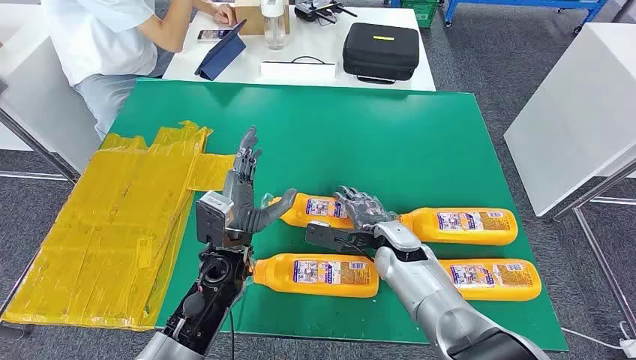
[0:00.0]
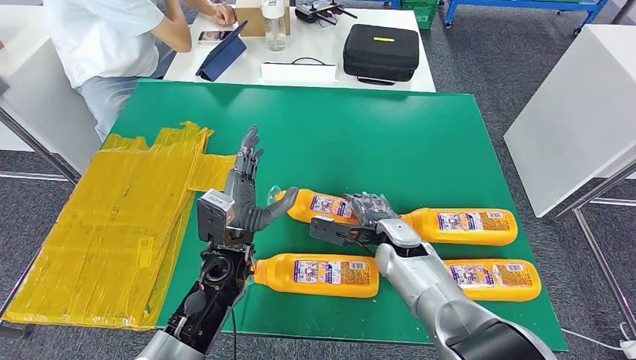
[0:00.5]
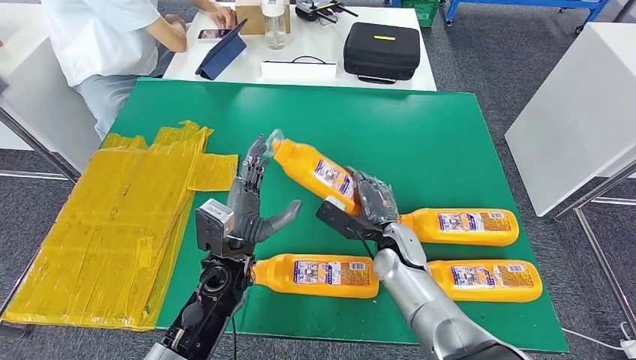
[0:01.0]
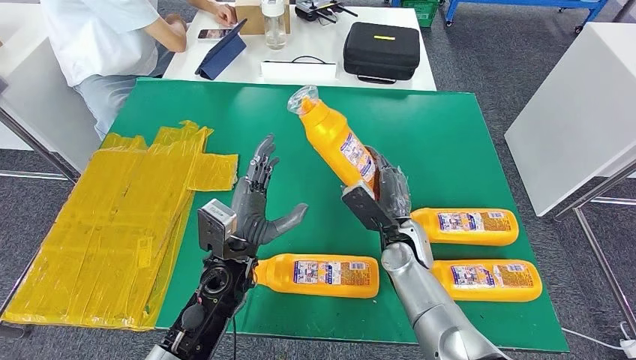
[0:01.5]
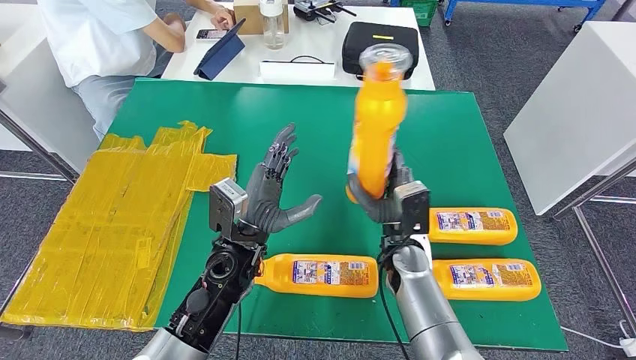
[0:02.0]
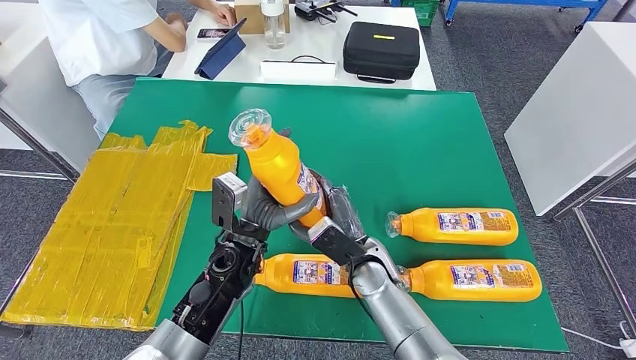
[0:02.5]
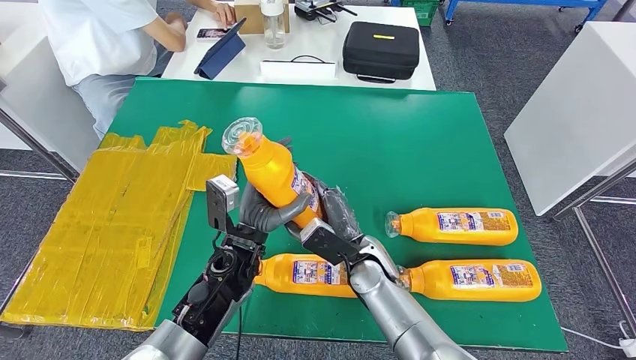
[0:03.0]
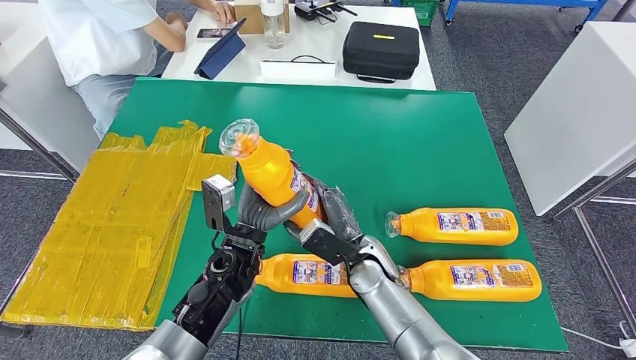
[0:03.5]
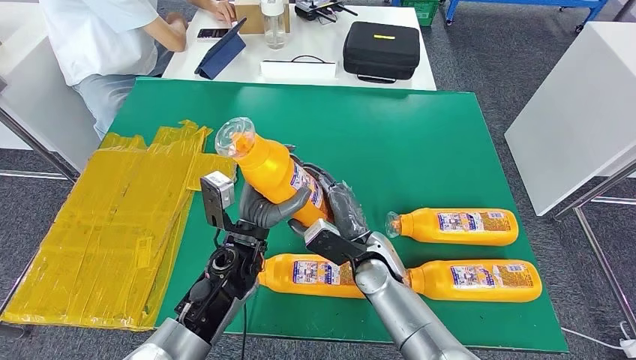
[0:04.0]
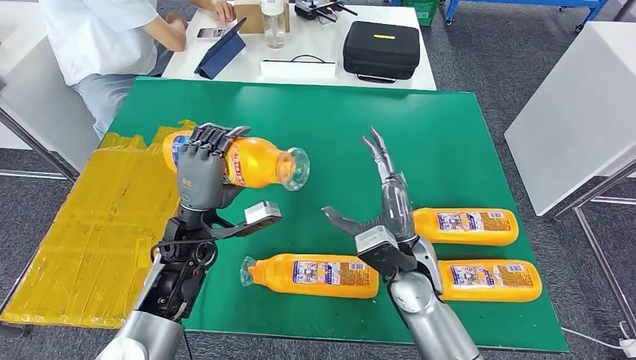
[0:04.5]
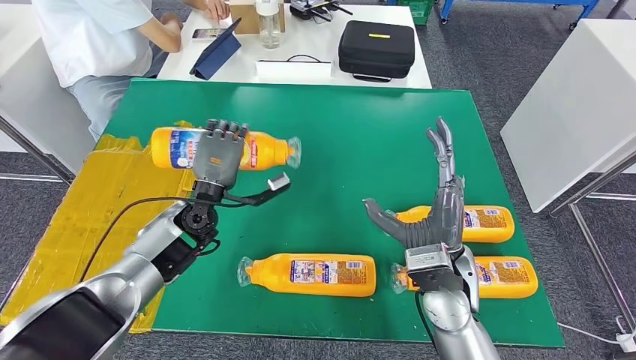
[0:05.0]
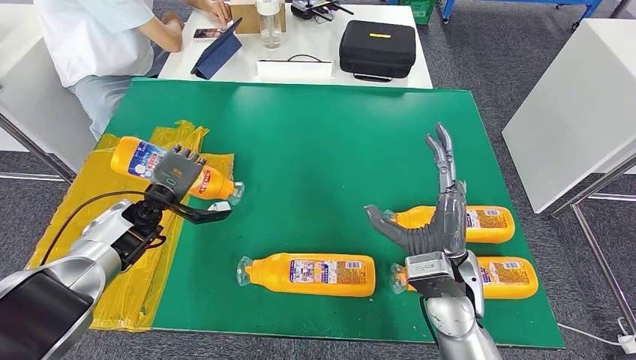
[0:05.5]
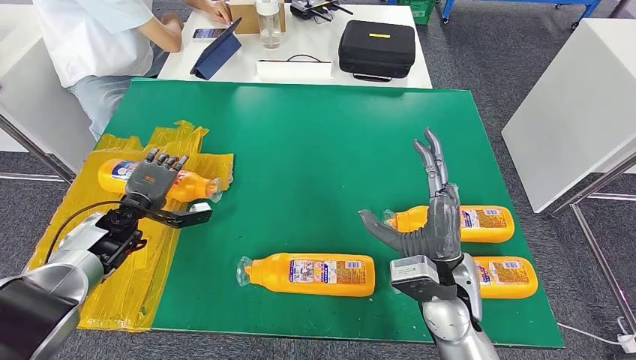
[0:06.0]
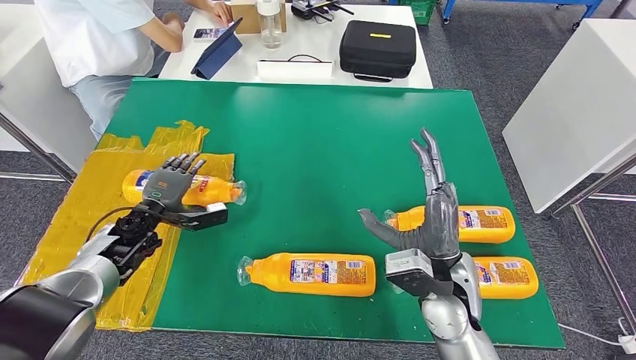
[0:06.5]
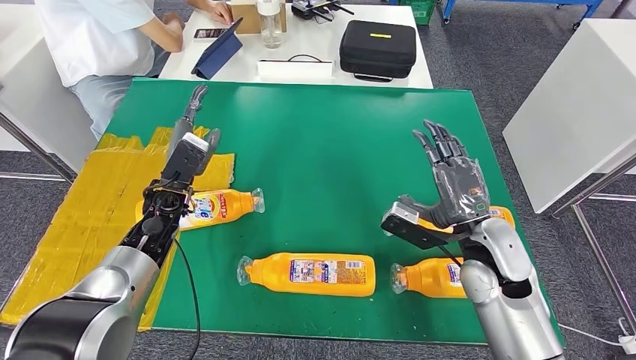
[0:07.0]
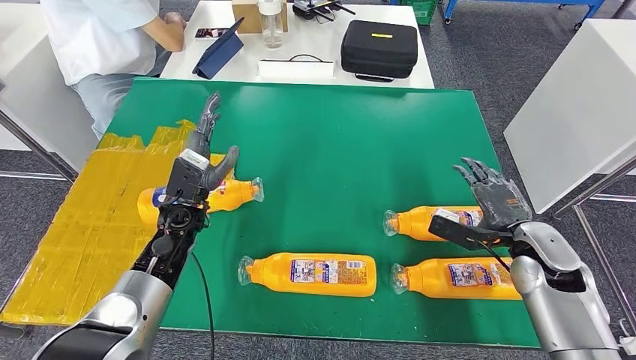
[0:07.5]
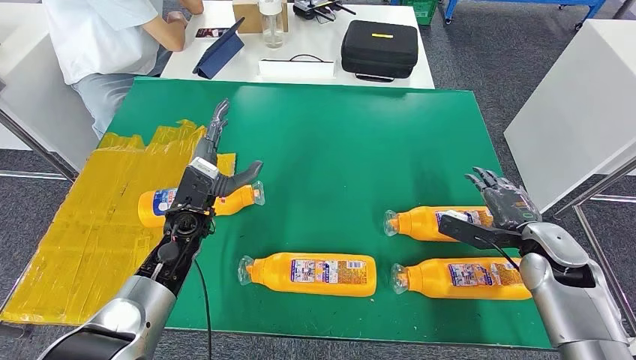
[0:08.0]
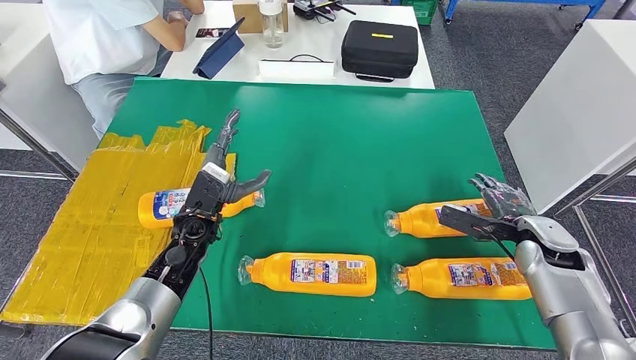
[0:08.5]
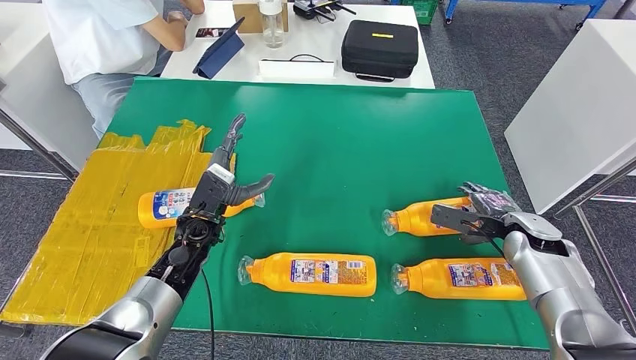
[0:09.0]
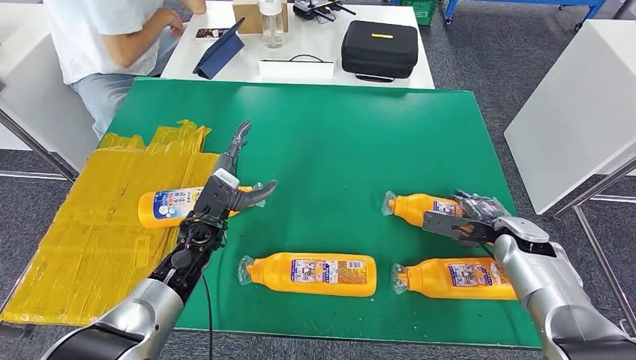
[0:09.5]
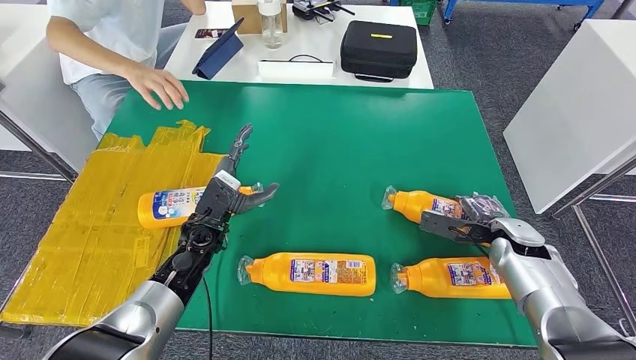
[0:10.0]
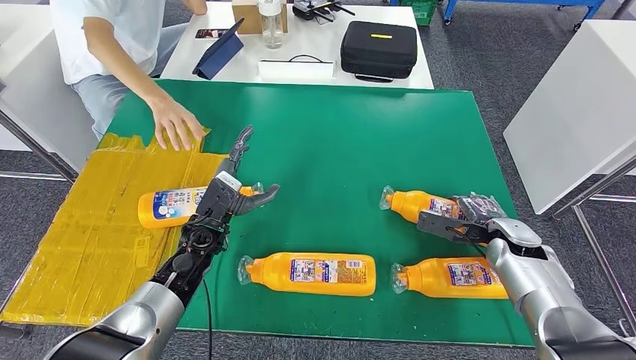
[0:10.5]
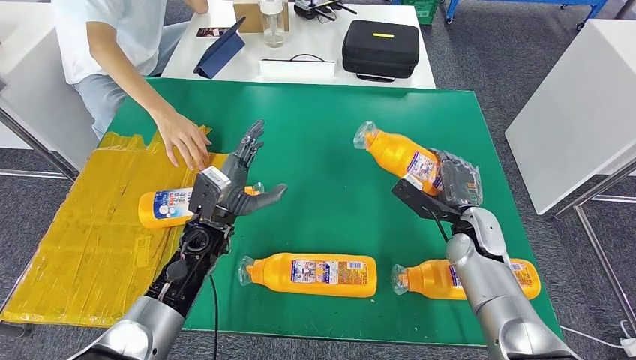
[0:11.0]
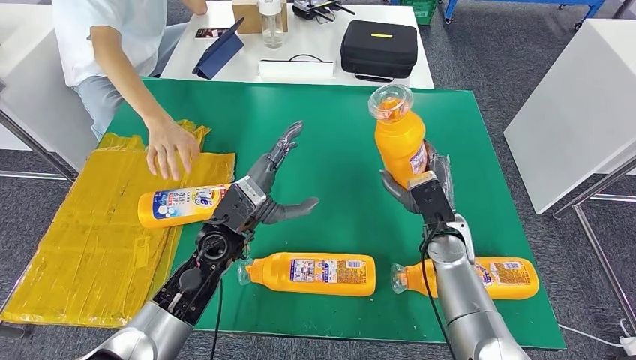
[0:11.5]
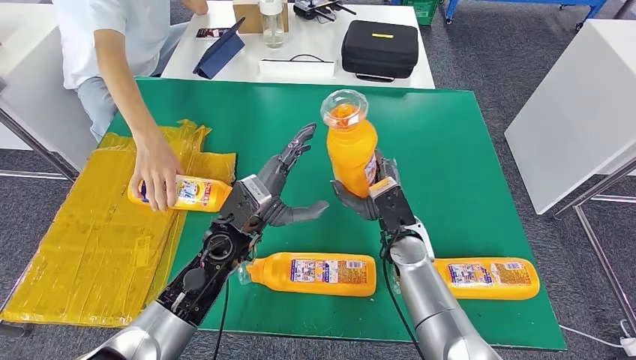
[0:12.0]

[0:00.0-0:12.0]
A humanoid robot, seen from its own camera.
Step, 0:00.0 to 0:02.0: Take the fast-moving consumer goods bottle from the table.
Step, 0:04.5 to 0:08.0: Flip the fast-moving consumer goods bottle to the front side.
0:02.0 to 0:04.0: The right hand moves about 5 cm.
0:08.0 to 0:10.0: The right hand shifts by about 5 cm.

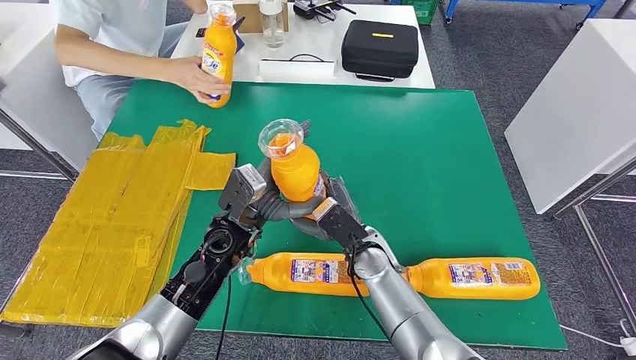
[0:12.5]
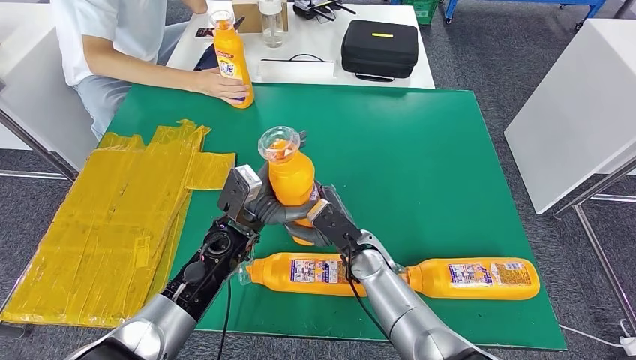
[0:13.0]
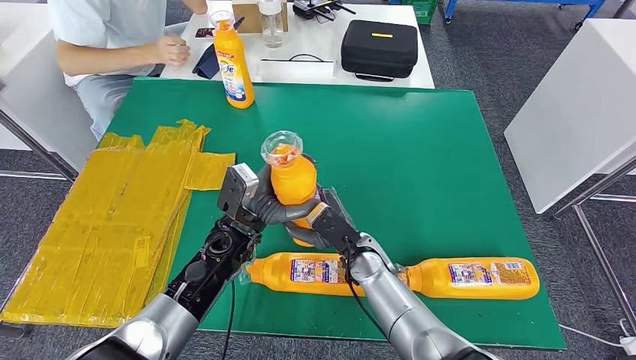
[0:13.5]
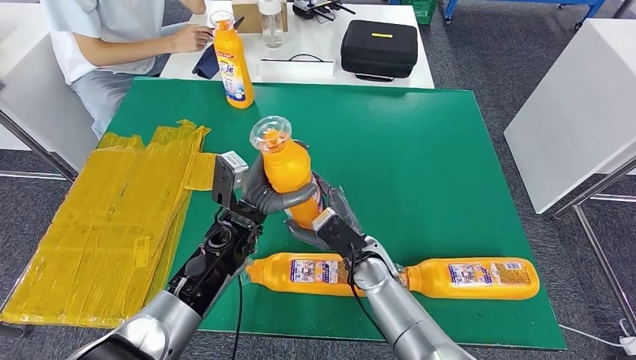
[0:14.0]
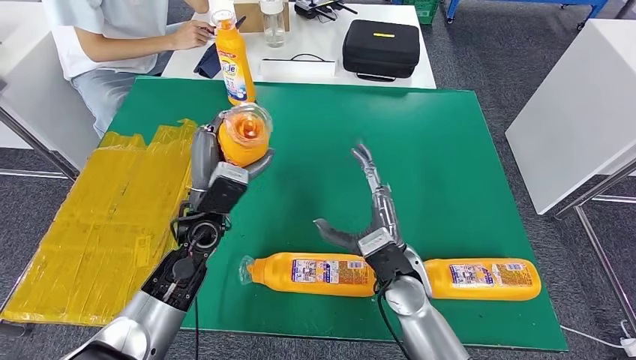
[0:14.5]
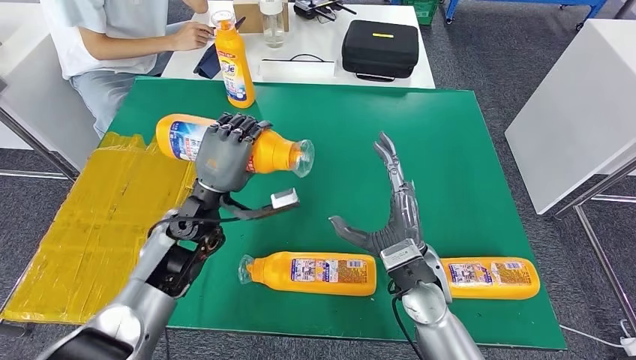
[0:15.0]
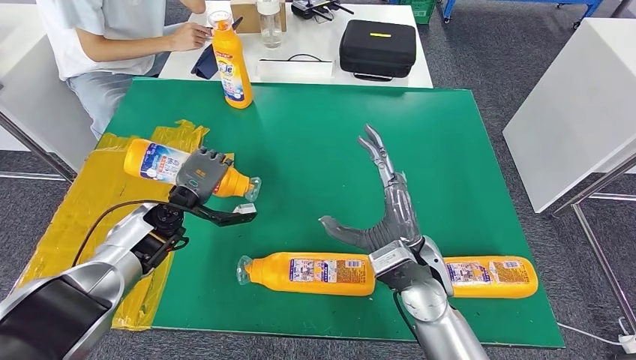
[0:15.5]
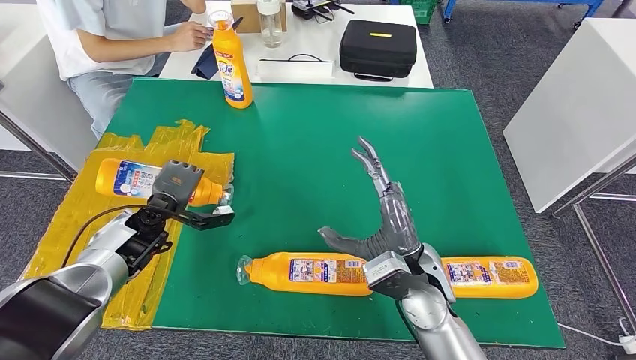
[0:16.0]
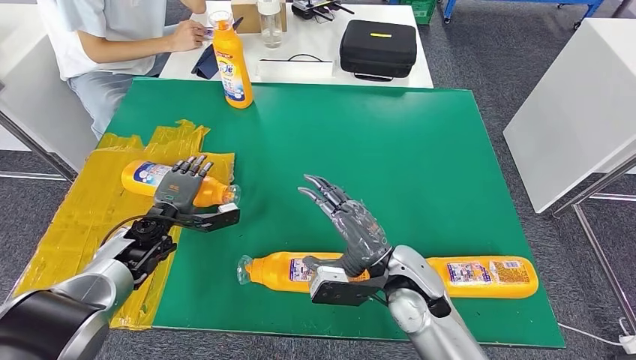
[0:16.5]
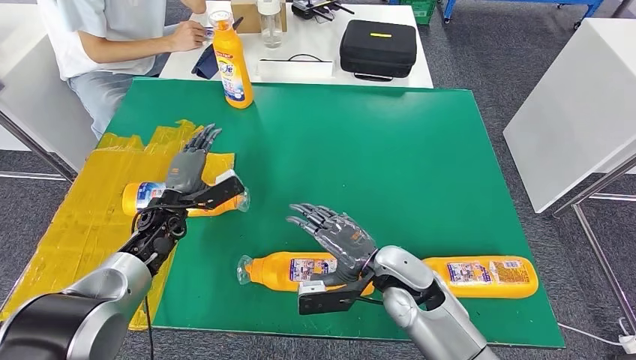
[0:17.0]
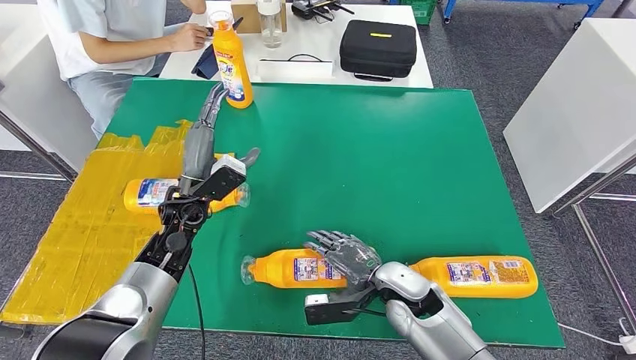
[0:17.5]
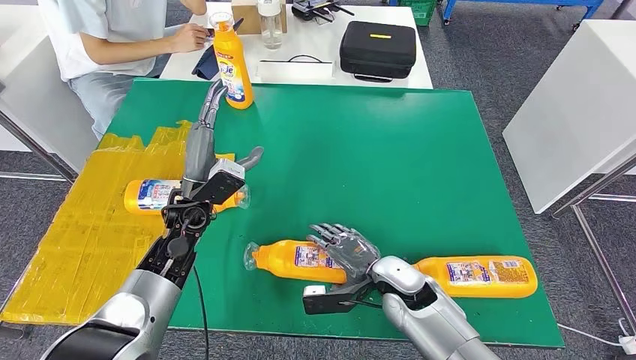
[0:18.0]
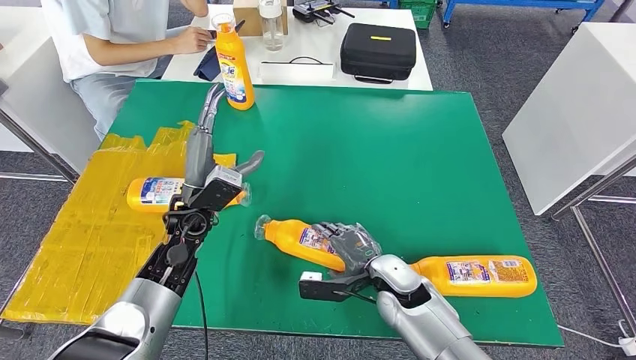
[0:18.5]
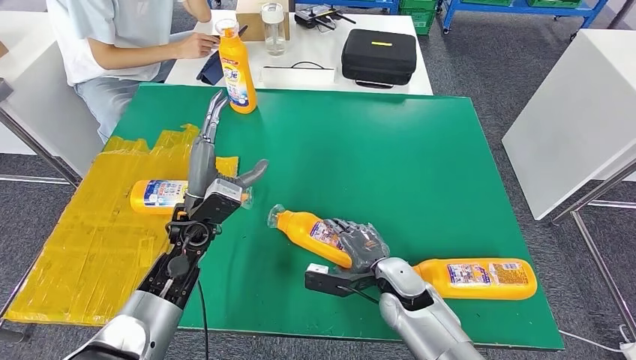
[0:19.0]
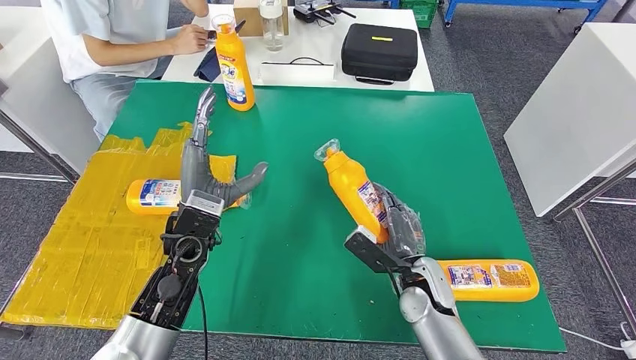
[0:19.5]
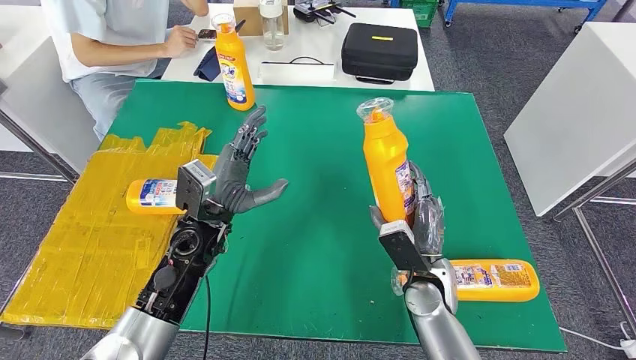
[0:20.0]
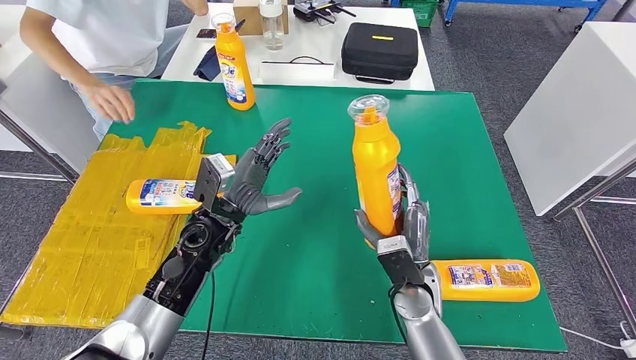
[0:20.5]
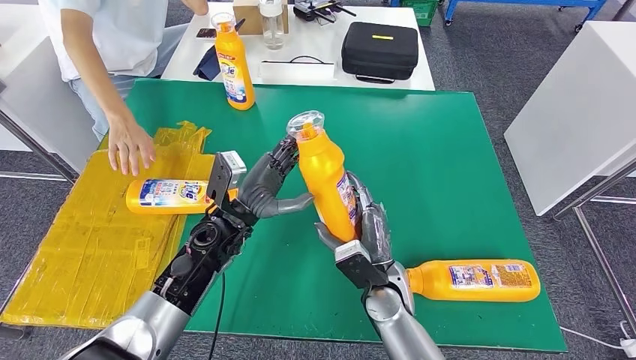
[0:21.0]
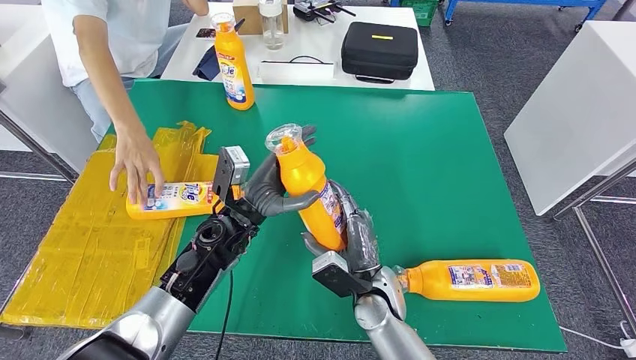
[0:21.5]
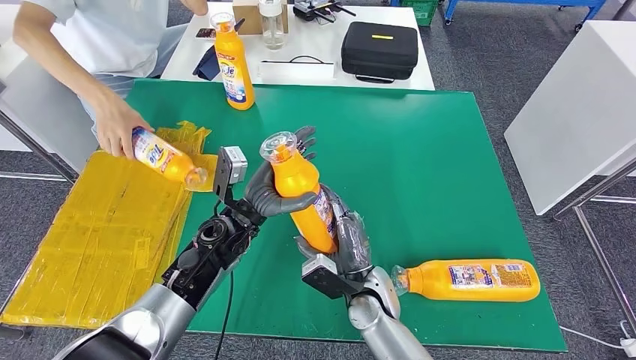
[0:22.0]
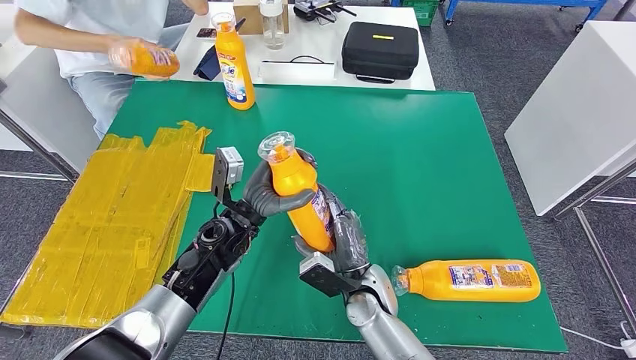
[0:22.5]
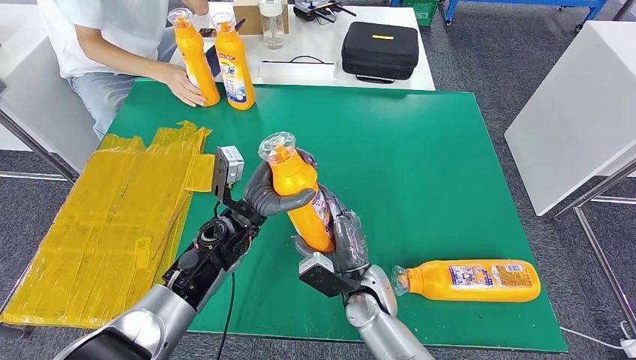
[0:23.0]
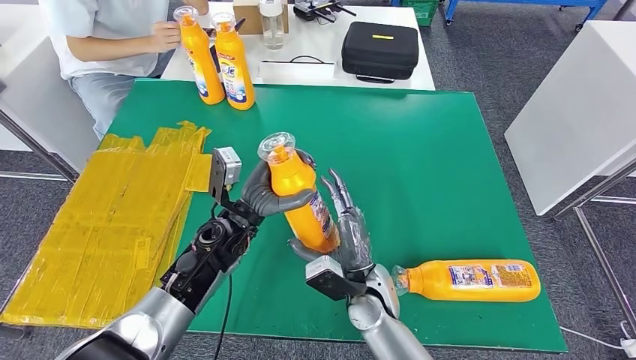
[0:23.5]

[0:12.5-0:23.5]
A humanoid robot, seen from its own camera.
Step, 0:13.5 to 0:17.0: Flip the fast-moving consumer goods bottle to the front side.
Step, 0:18.5 to 0:20.0: Pick up the fast-moving consumer goods bottle from the table.
0:21.5 to 0:23.5: The hands move only a little.
